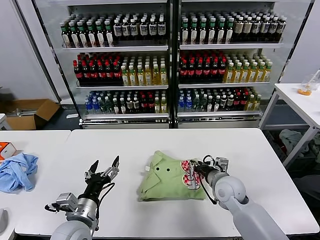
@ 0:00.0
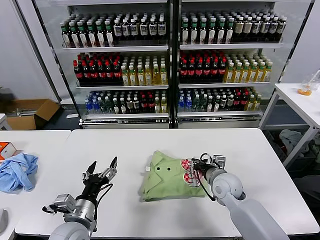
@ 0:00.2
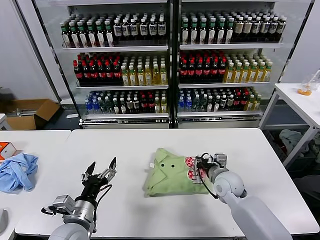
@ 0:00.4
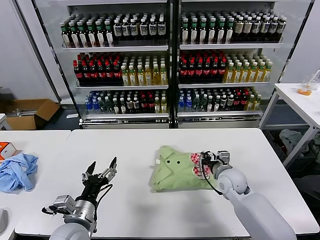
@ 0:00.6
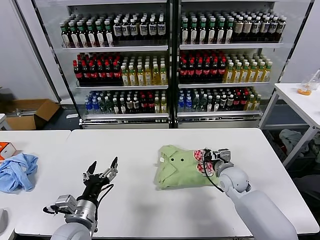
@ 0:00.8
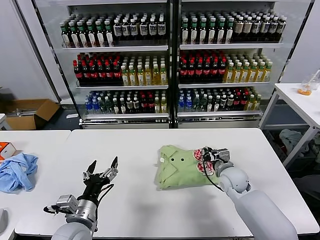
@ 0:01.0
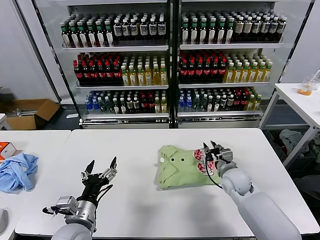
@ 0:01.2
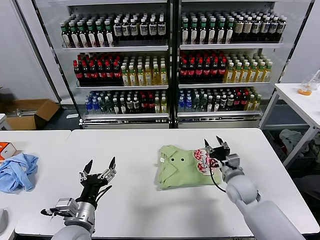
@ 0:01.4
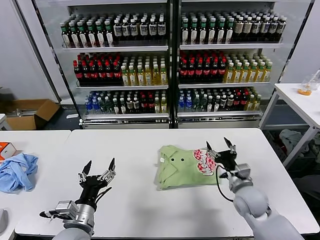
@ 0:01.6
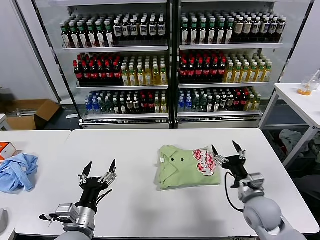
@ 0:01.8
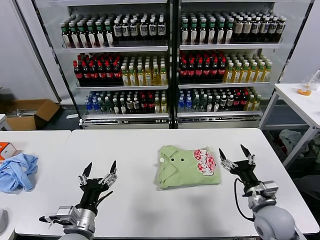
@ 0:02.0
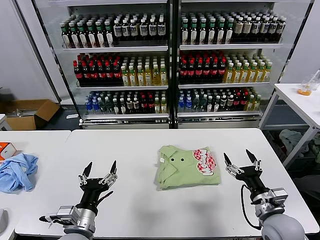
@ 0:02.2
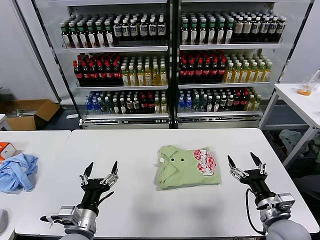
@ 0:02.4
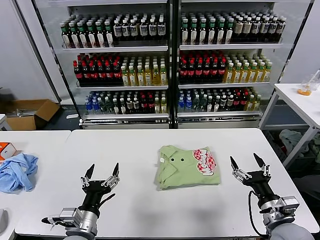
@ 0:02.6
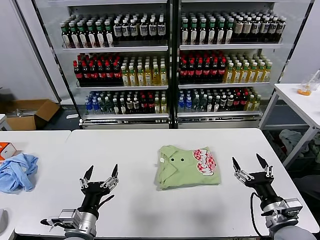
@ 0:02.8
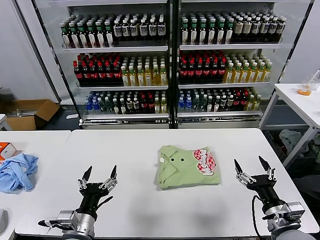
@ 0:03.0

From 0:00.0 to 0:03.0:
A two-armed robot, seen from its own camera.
Task of the whole recording: fold and organize the clothes.
From 0:00.0 to 0:01.6: The right gripper moves approximately 5 cm, and opens its fingers.
From 0:01.6 to 0:03.0: The right gripper moves backward, approximately 15 cm.

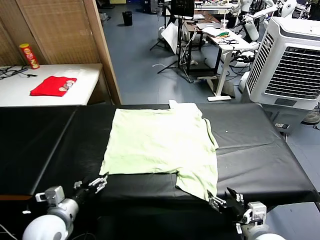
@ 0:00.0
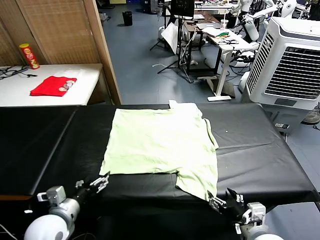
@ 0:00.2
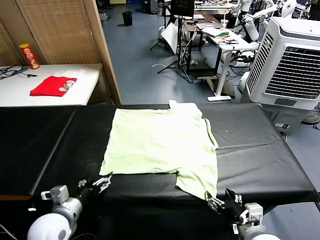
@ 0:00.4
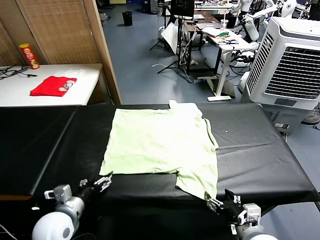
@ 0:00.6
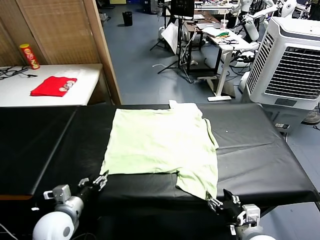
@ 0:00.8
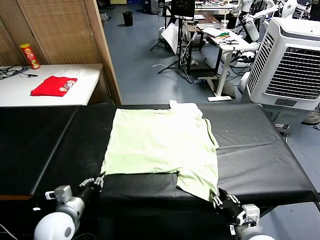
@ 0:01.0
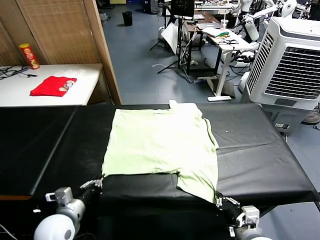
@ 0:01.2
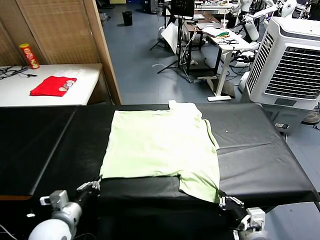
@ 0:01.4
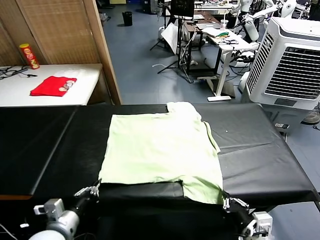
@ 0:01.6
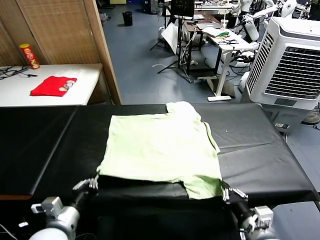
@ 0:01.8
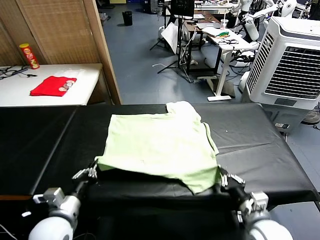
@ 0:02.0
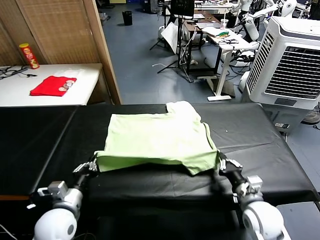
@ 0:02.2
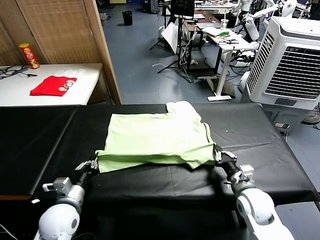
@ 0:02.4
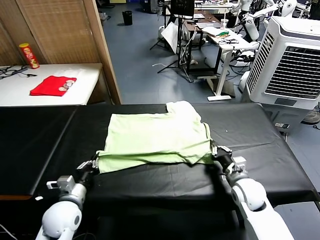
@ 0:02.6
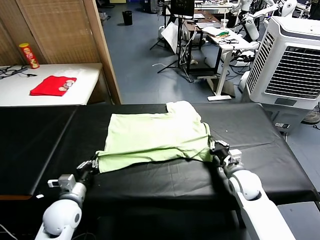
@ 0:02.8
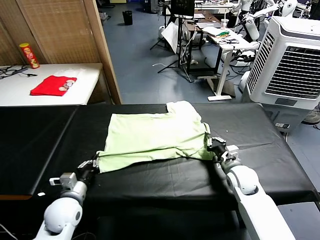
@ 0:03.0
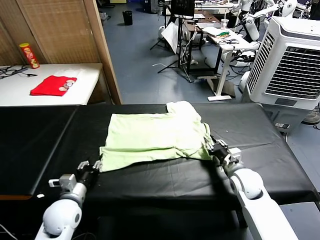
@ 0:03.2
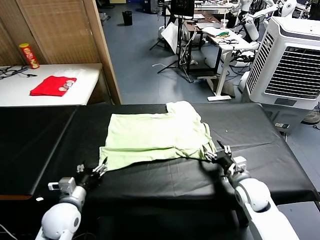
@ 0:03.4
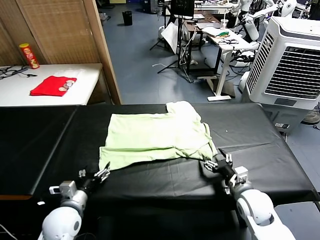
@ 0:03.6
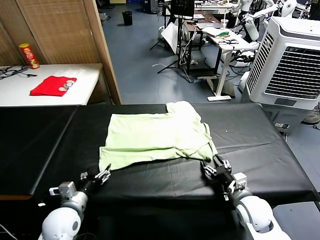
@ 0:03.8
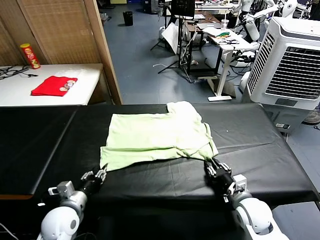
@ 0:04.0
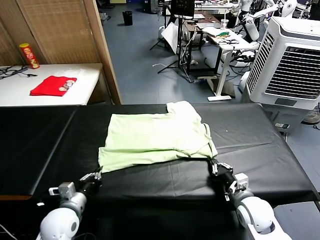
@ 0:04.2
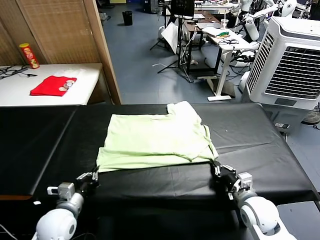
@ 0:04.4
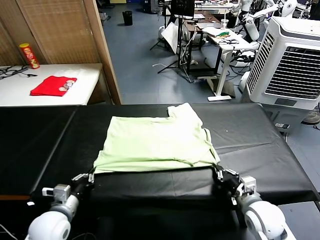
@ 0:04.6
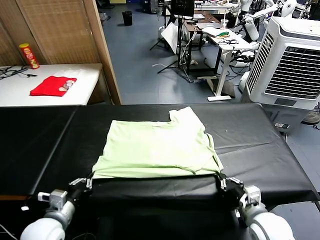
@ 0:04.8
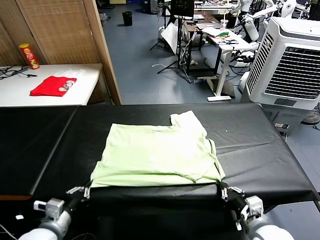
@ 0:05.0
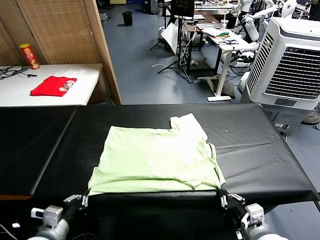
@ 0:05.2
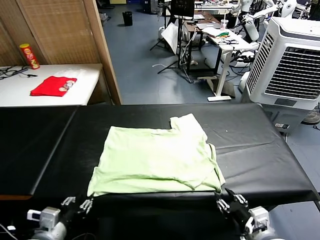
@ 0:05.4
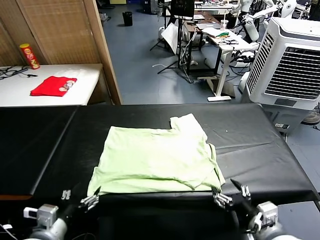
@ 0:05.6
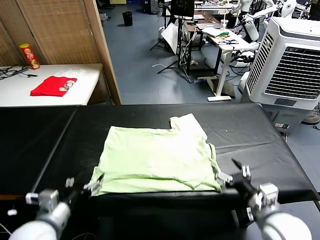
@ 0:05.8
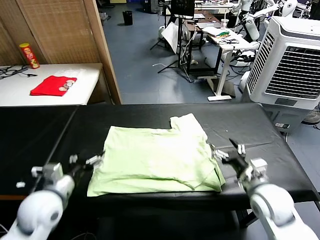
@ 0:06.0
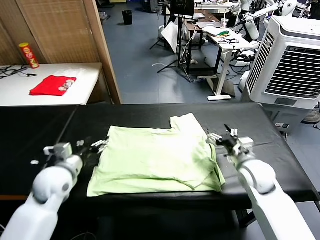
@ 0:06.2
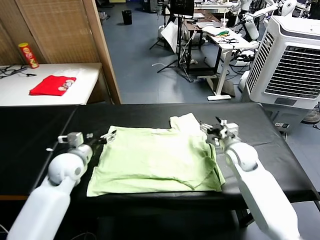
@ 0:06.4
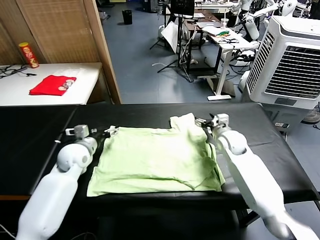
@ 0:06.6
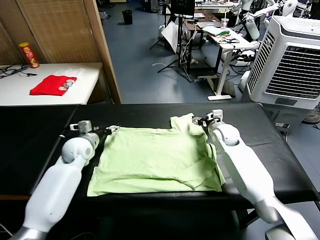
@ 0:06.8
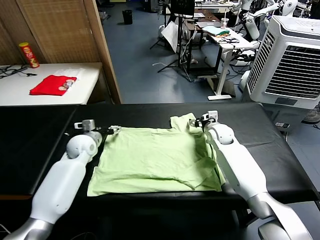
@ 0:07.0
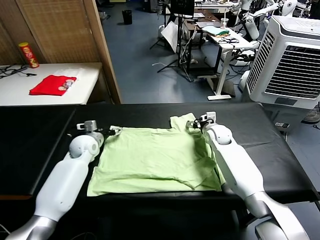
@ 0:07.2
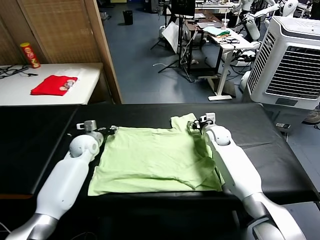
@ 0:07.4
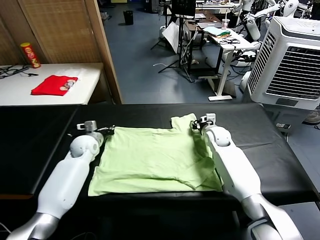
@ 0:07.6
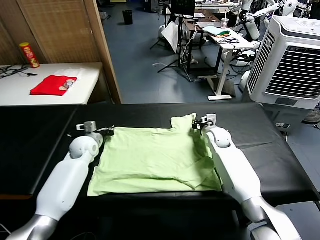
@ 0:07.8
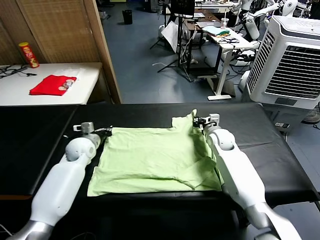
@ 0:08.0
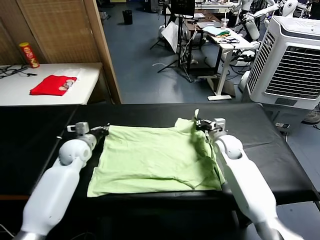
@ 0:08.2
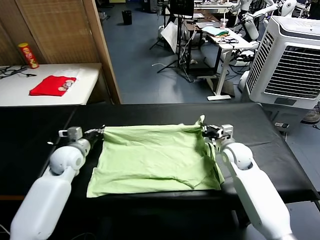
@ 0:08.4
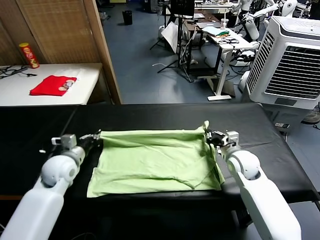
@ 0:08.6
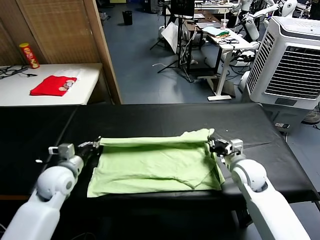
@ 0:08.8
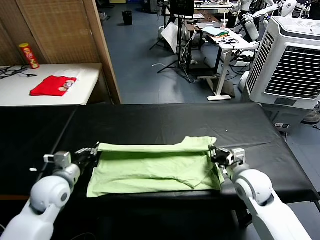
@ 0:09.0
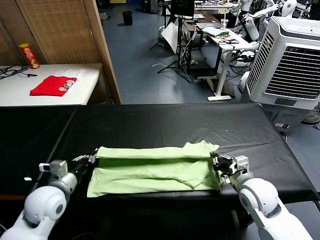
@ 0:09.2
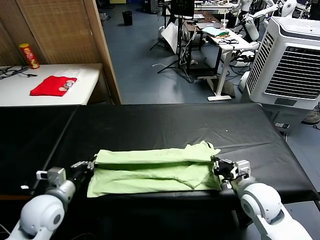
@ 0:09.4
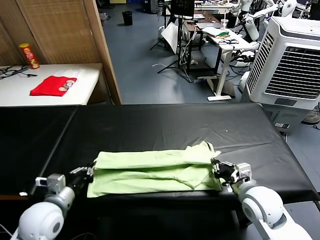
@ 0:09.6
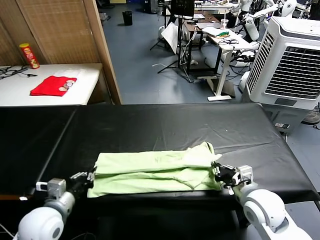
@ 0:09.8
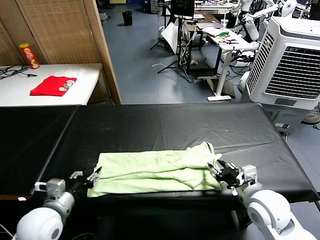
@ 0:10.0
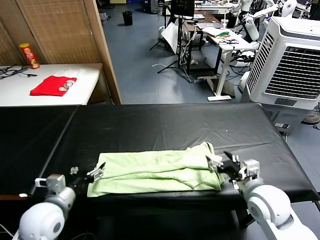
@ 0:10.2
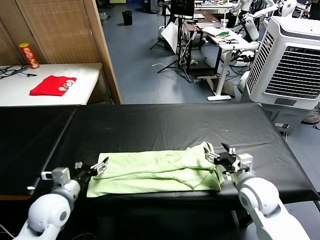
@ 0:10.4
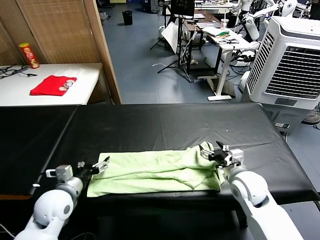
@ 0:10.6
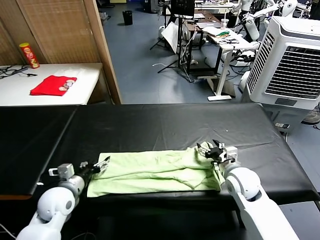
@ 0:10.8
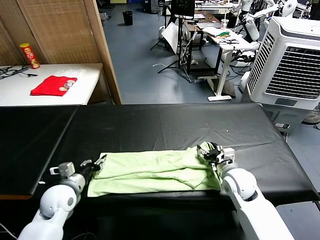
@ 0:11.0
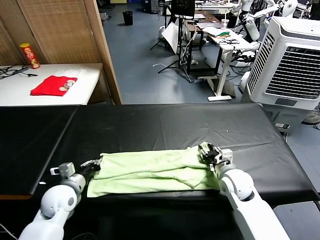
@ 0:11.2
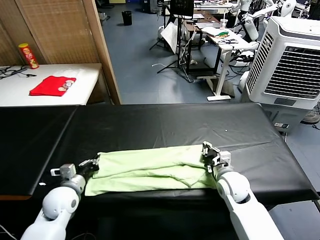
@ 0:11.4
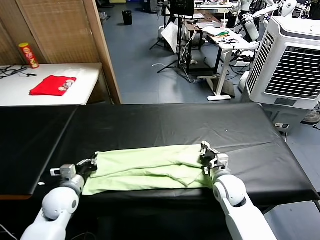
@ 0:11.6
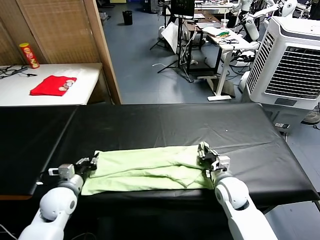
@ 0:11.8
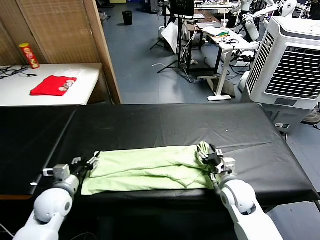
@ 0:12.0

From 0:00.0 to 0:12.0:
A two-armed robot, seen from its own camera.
Task of the whole recording: fold and organize the clothes.
Step, from 0:00.0 to 0:01.2: use both grippers simultaneously to clamp the lower edge of the clothing fabric.
Step, from 0:01.4 to 0:03.2: use both grippers to drag the lower edge of the fabric forward and fold it over the upper edge.
Step, from 0:03.4 to 0:05.4: Drag the clothes downward with both gripper.
Step, from 0:05.6 to 0:07.6: use both grippers simultaneously to clamp the upper edge of the clothing fabric.
Step, from 0:07.8 to 0:10.0: use both grippers to drag the upper edge of the fabric backward and fold it over the lower edge.
From 0:01.6 to 0:03.0: The right gripper heads forward, covering about 20 cm, and opens. Meanwhile the left gripper heads forward and downward, covering roughly 10 cm.
From 0:03.0 to 0:04.4: The left gripper opens, then closes again; the right gripper travels backward by approximately 10 cm, and closes its fingers.
From 0:04.4 to 0:06.0: The right gripper heads forward and upward, covering roughly 10 cm, and opens up. Meanwhile the left gripper moves upward, about 10 cm, travels backward and back again, approximately 10 cm each way, and opens its fingers.
From 0:06.0 to 0:07.6: The two grippers go some 20 cm forward. The right gripper closes up. Meanwhile the left gripper closes up.
From 0:07.6 to 0:09.0: Both grippers move backward, roughly 20 cm.
From 0:09.0 to 0:10.4: The left gripper opens up; the right gripper opens its fingers.
From 0:10.4 to 0:12.0: The left gripper moves about 5 cm, and closes, then opens again. The right gripper closes, then reopens.

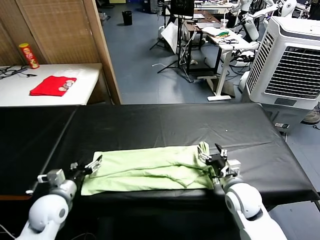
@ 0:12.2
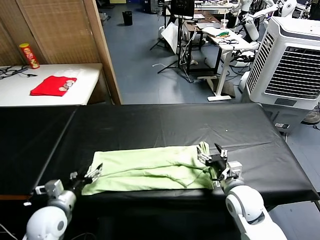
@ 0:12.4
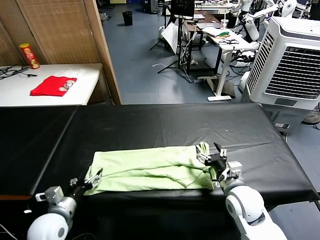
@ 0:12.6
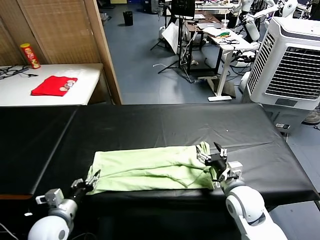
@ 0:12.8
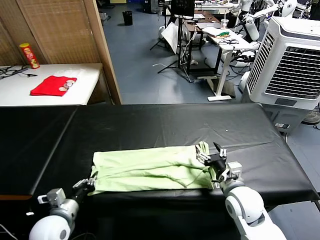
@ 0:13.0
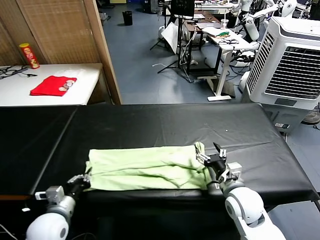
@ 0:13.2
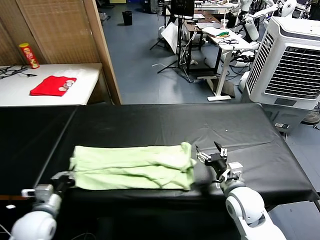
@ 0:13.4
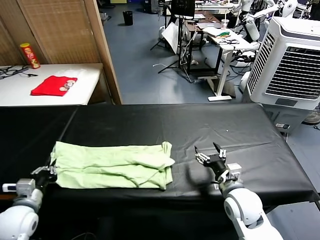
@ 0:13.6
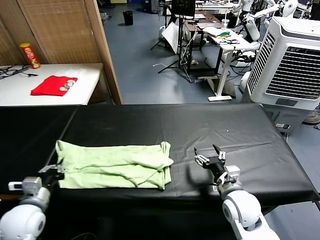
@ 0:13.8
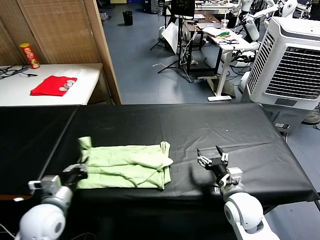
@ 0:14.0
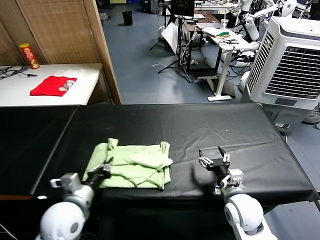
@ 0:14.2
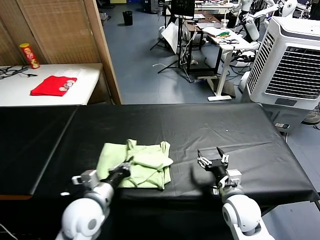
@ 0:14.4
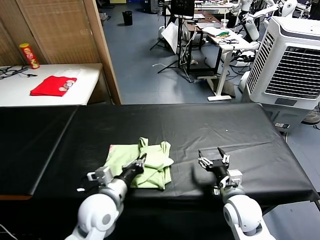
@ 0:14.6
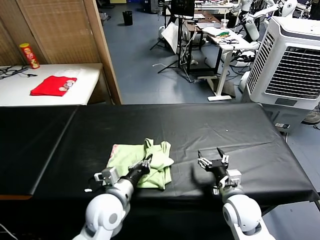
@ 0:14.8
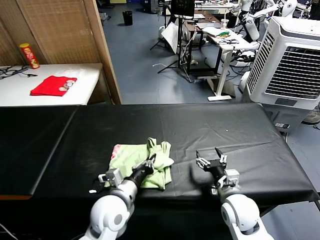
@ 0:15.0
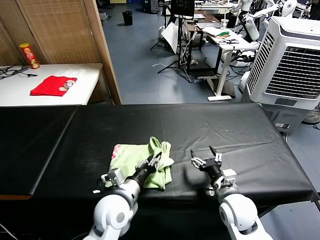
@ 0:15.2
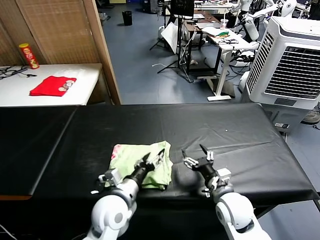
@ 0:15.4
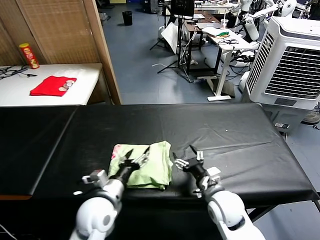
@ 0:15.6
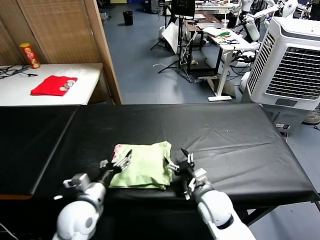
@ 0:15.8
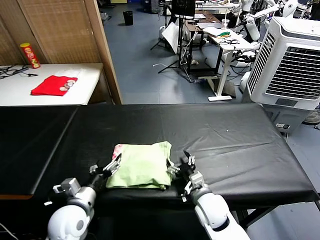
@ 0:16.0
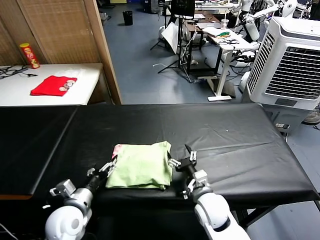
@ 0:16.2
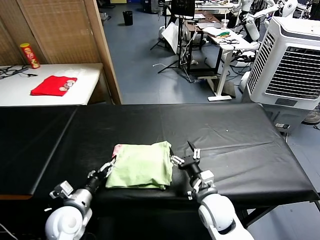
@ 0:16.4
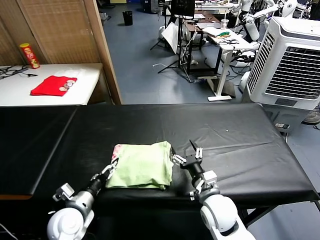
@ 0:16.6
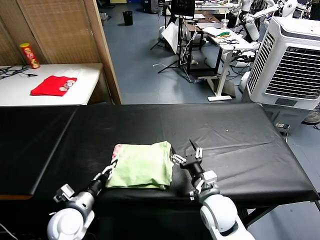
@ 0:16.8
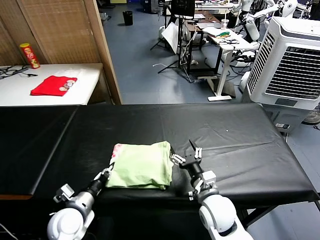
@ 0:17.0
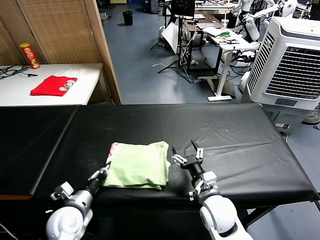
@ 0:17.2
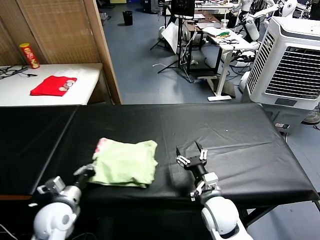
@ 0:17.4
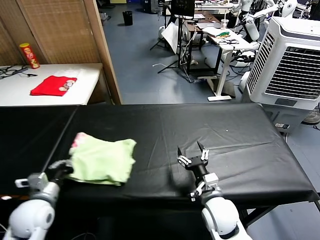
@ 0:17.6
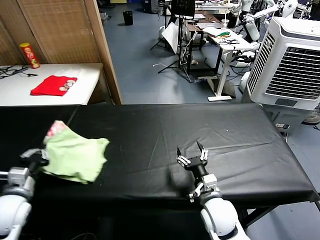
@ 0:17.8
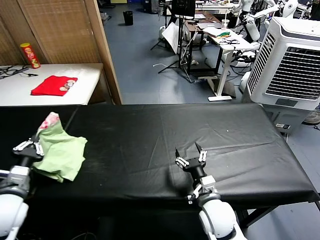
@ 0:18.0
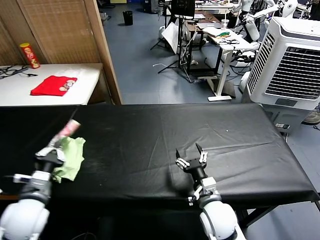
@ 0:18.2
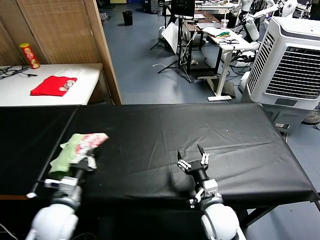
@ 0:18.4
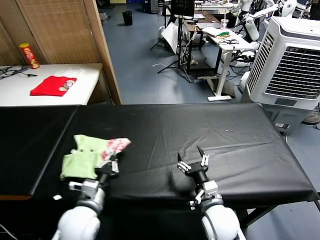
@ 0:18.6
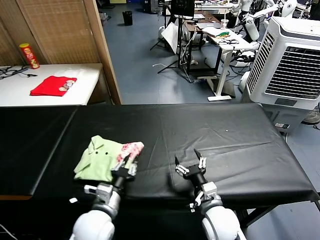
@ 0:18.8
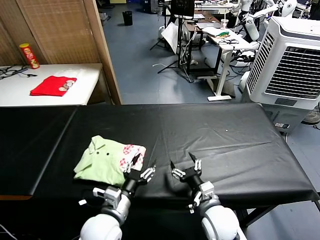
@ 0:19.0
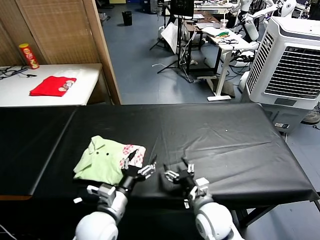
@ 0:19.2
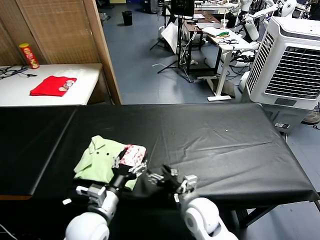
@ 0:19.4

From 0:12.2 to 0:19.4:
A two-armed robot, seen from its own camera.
Task of the whole recording: fold and organize the clothes.
Step, from 0:13.2 to 0:15.4: use the left gripper to drag the left edge of the fabric to the left and folds it over the right edge.
Step, from 0:15.6 to 0:18.8: Flip the folded clothes over with left gripper.
From 0:12.2 to 0:13.6: The left gripper heads to the left, covering roughly 5 cm, and closes its fingers.
From 0:13.6 to 0:15.0: The left gripper is displaced to the right by approximately 25 cm.
From 0:15.0 to 0:16.6: The right gripper is displaced to the left by approximately 5 cm. The left gripper heads to the left, covering some 15 cm, and opens up.
From 0:16.6 to 0:18.0: The left gripper shifts about 15 cm to the left and upward, and closes up.
From 0:18.0 to 0:19.4: The left gripper goes roughly 20 cm to the right, and opens.
